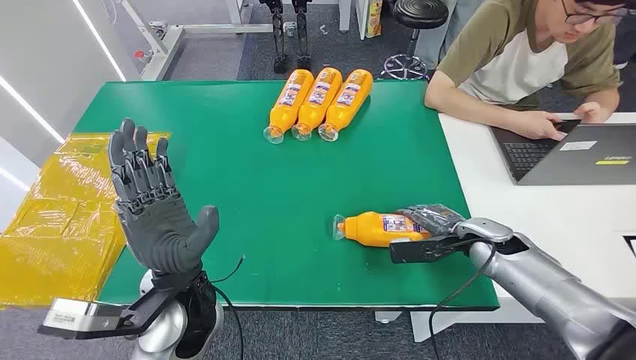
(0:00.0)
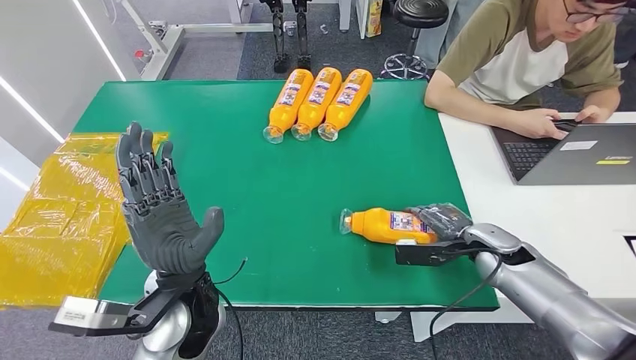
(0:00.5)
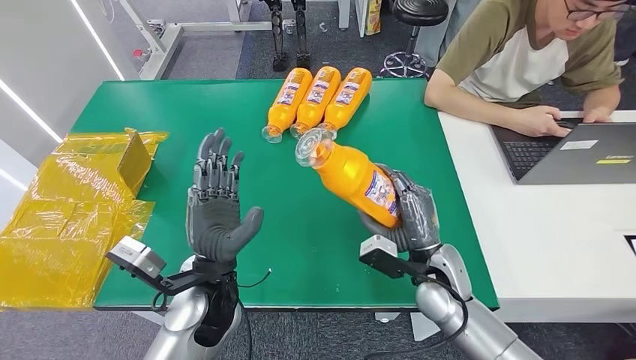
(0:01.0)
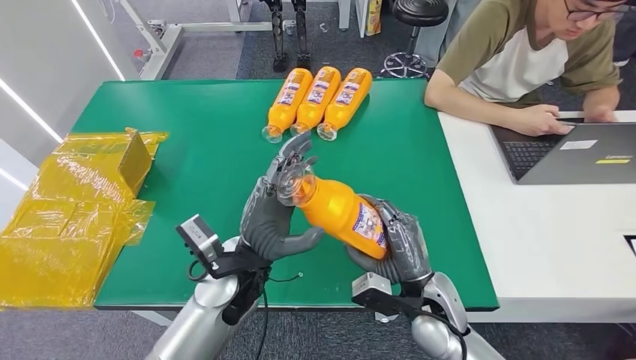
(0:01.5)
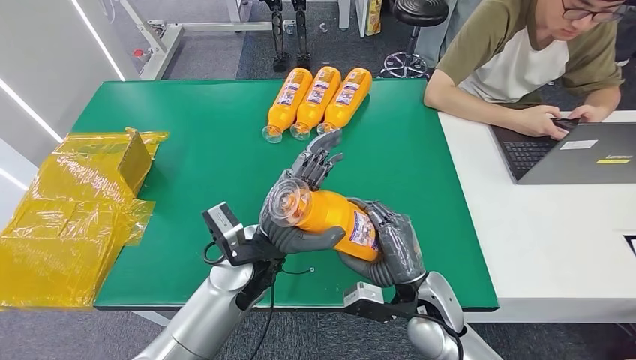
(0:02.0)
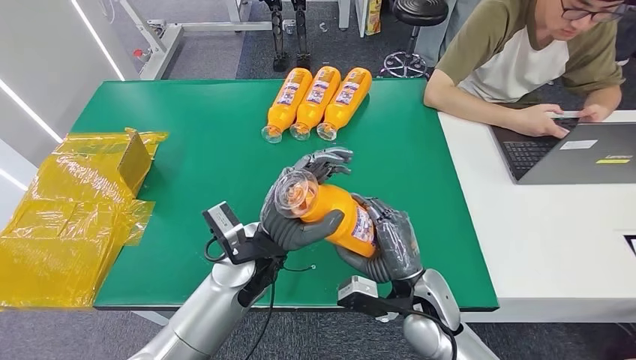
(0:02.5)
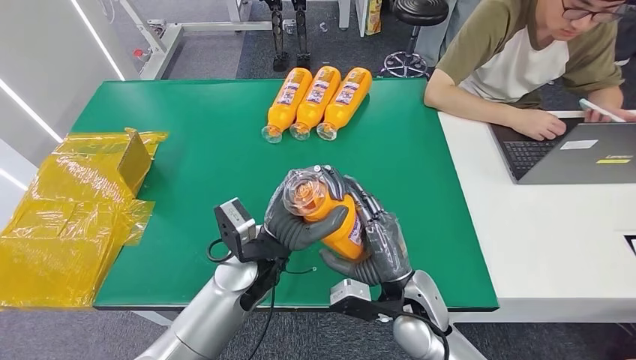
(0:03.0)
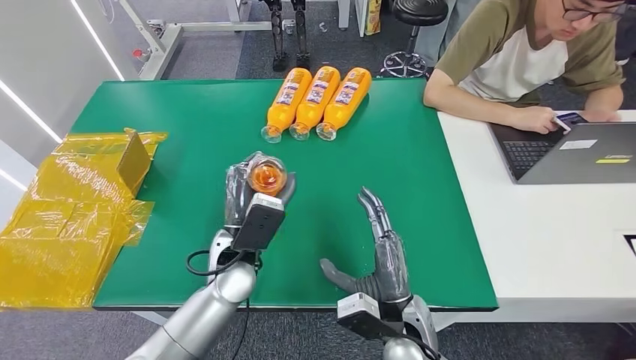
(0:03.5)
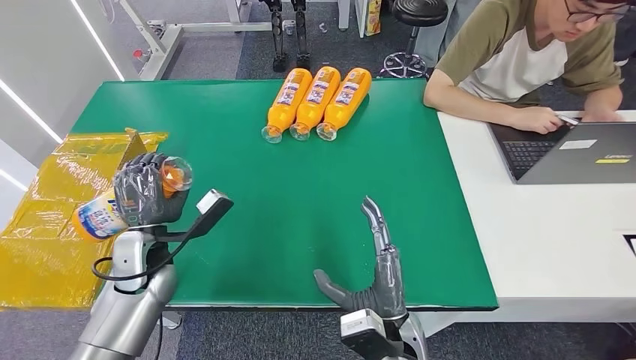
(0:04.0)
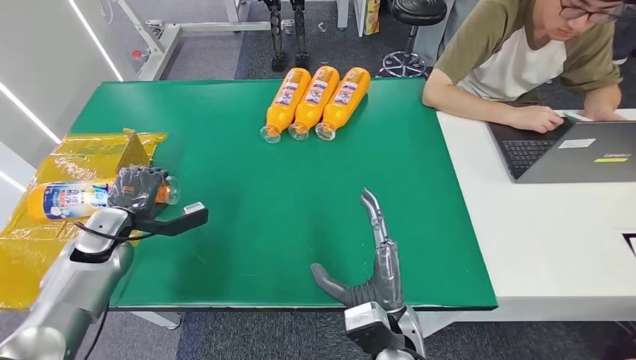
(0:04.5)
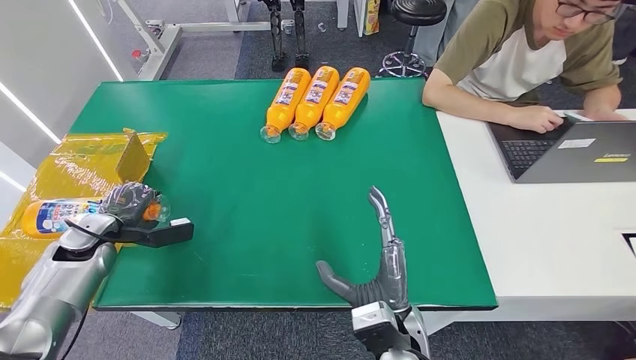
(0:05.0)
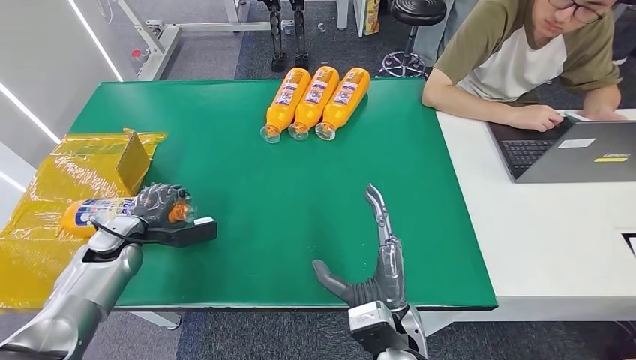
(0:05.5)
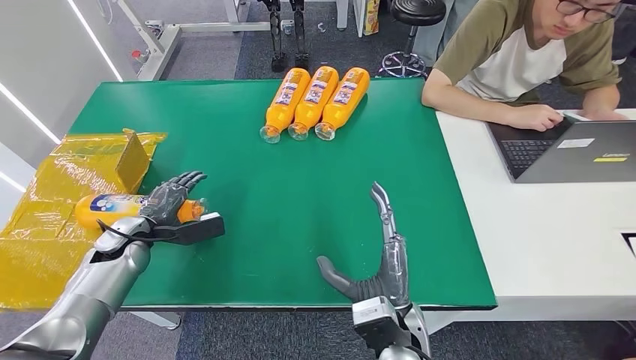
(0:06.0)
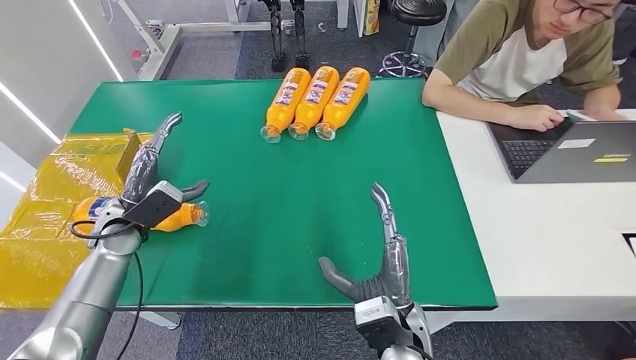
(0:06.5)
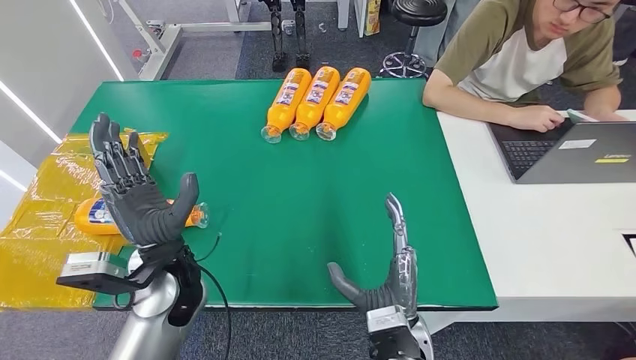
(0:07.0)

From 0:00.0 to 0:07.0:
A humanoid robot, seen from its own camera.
Step, from 0:00.0 to 0:01.0: Pick up the bottle from the table.
Step, from 0:01.5 to 0:07.0: Turn the bottle to the front side.
From 0:02.0 to 0:03.5: The right hand moves approximately 5 cm.
From 0:03.5 to 0:05.0: The left hand goes roughly 30 cm to the left.
From 0:05.0 to 0:07.0: The left hand heads to the right, covering roughly 25 cm.

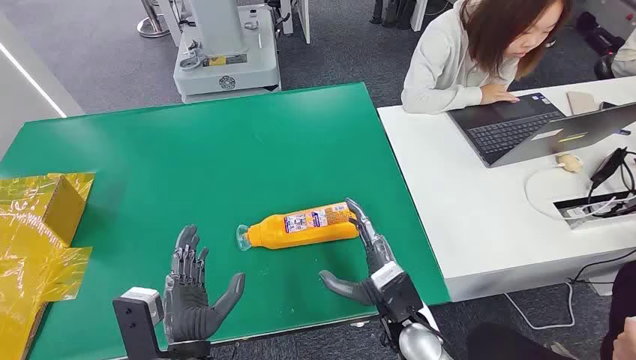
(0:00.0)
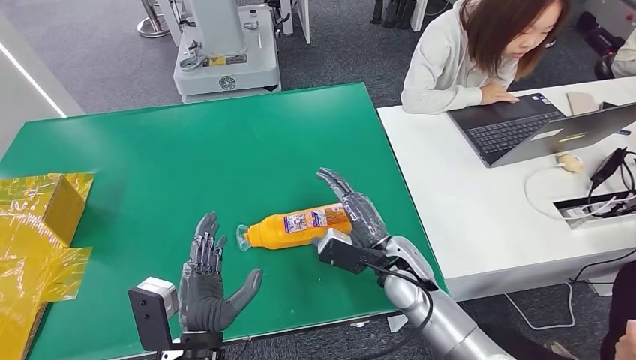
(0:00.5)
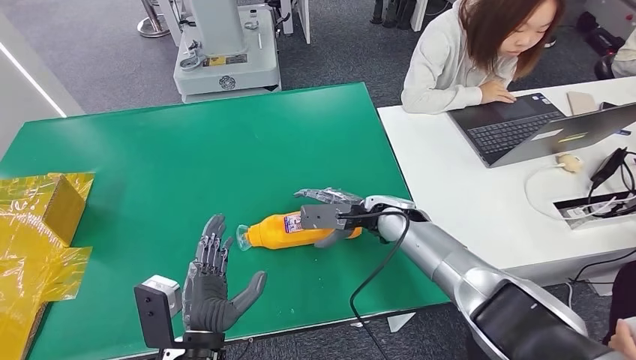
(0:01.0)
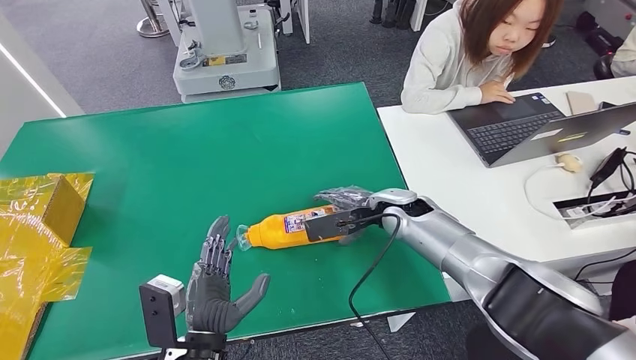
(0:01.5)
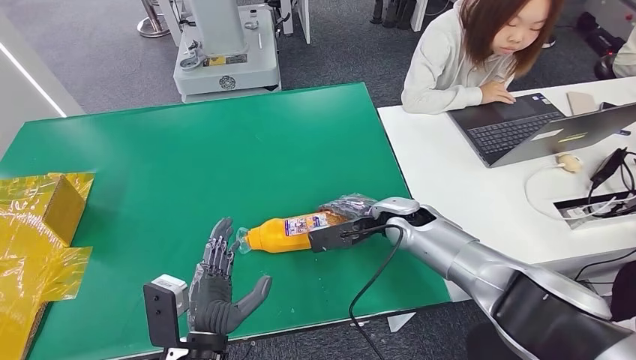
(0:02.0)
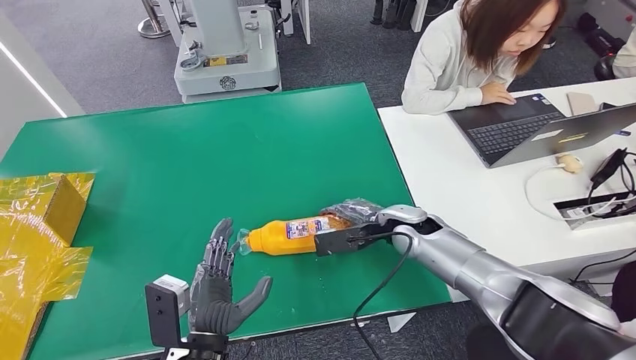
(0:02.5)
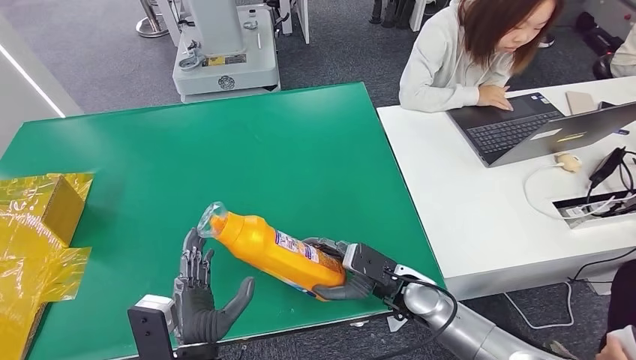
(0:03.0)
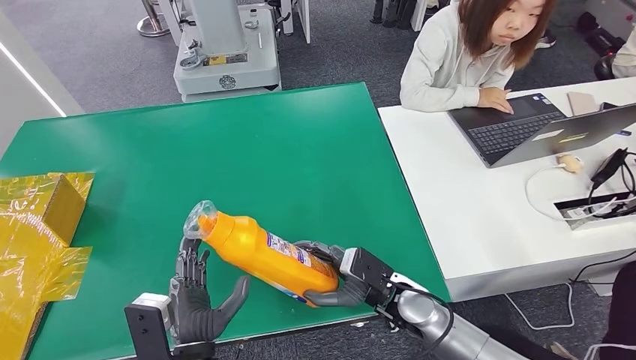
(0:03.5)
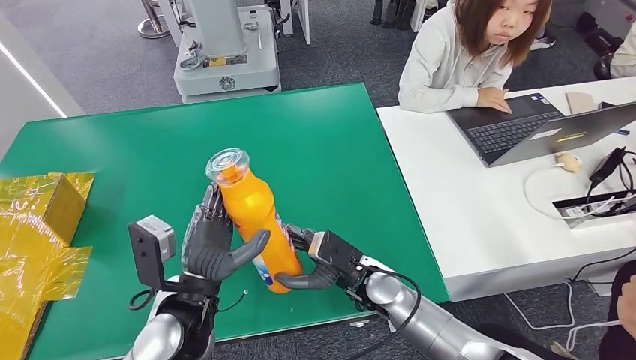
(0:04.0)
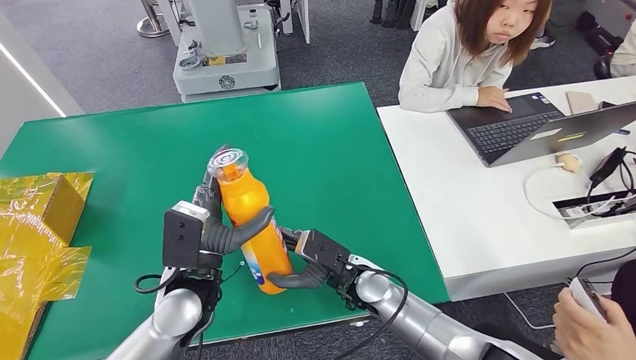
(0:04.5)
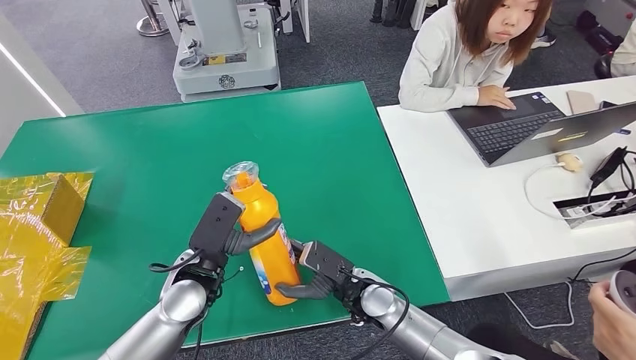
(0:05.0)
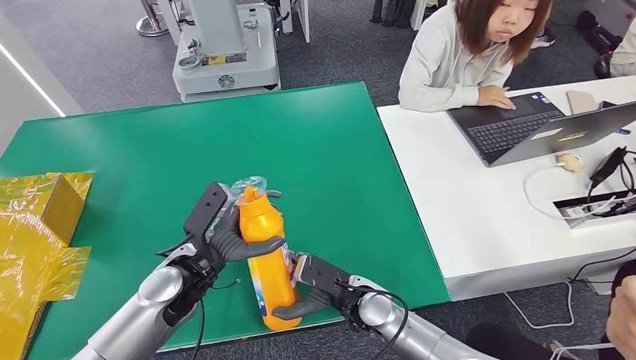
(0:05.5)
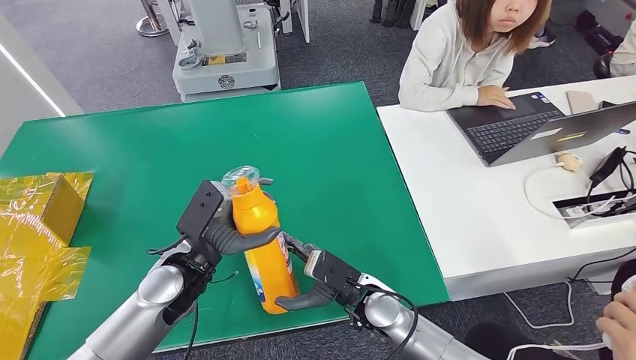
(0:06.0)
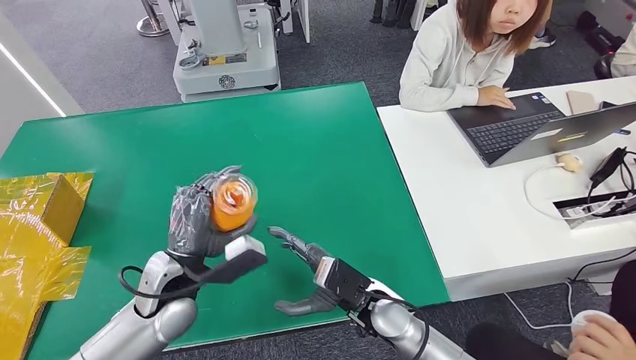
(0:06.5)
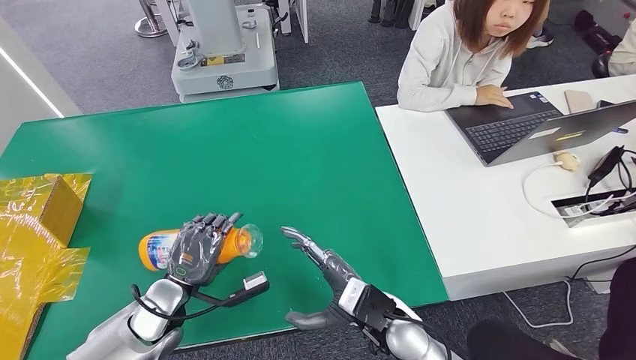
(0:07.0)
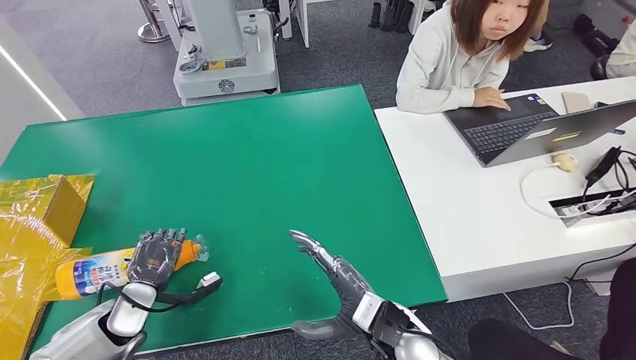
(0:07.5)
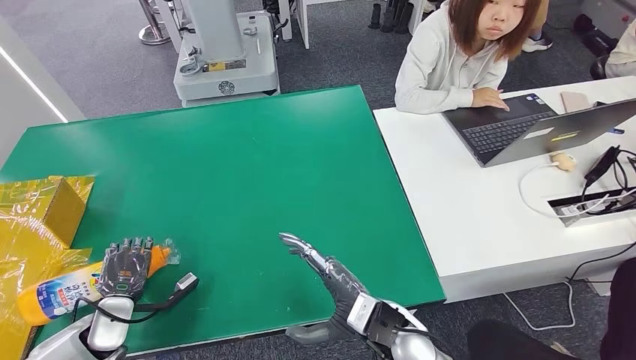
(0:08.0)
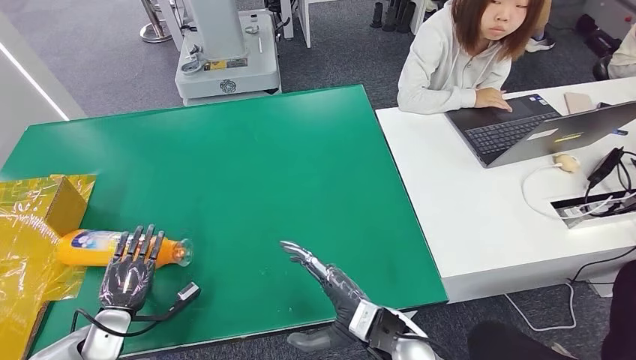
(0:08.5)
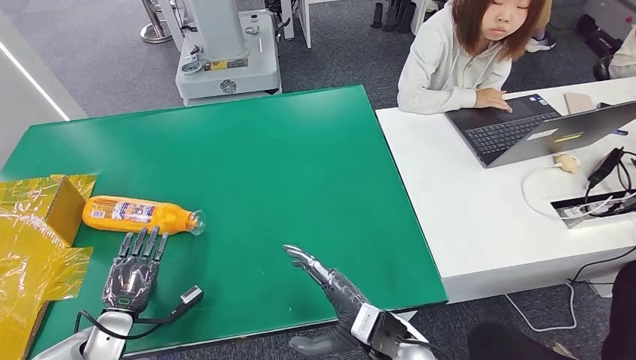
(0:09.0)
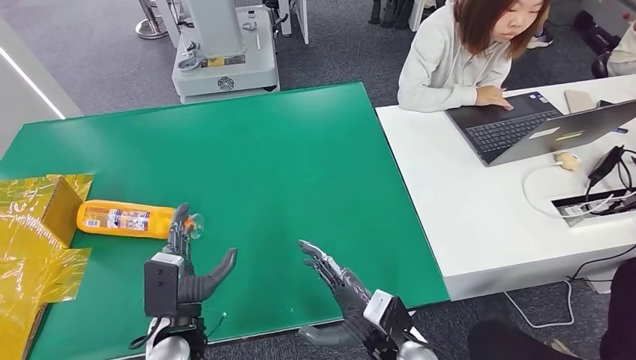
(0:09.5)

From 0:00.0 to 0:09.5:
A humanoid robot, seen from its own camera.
Step, from 0:00.0 to 0:03.5: Pick up the bottle from the table.
Step, from 0:04.0 to 0:09.5: Turn the bottle to the front side.
From 0:04.0 to 0:05.5: The left hand is displaced forward by roughly 5 cm.
From 0:07.5 to 0:09.5: The left hand moves to the right and backward, approximately 10 cm.
